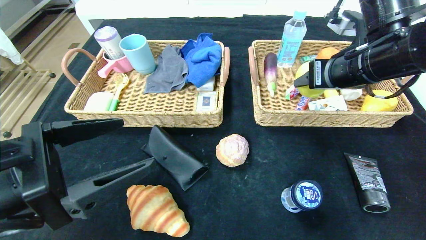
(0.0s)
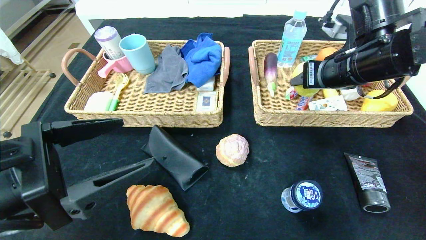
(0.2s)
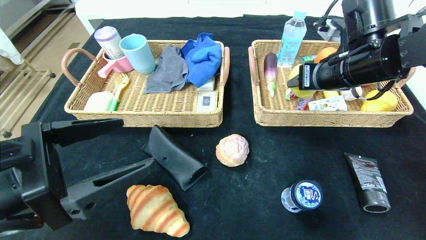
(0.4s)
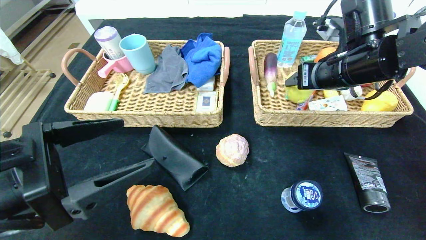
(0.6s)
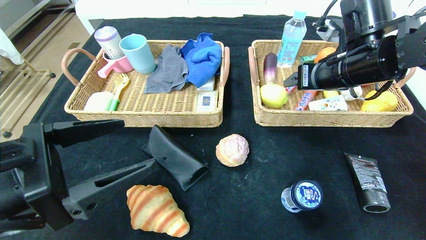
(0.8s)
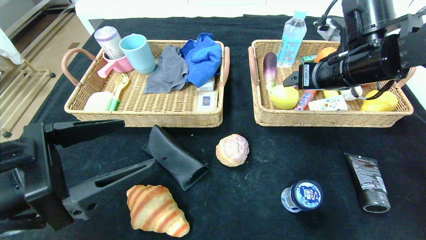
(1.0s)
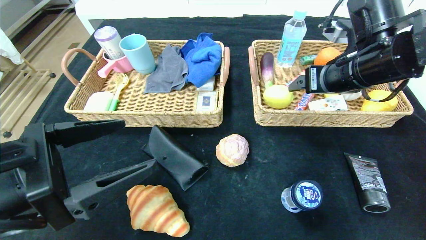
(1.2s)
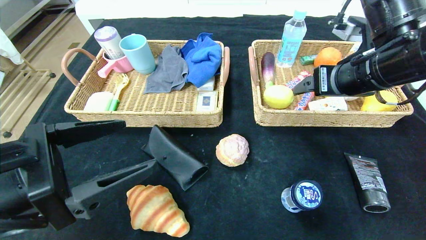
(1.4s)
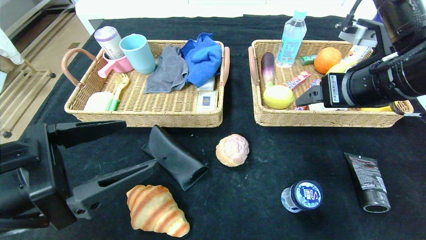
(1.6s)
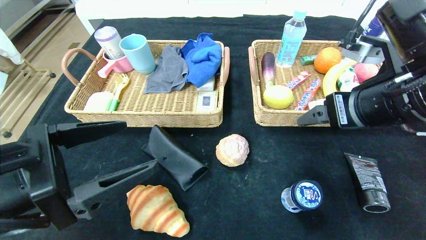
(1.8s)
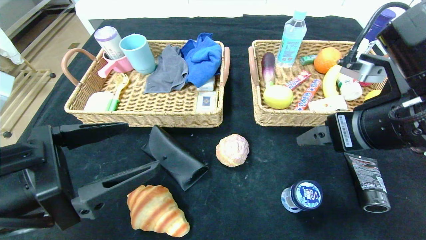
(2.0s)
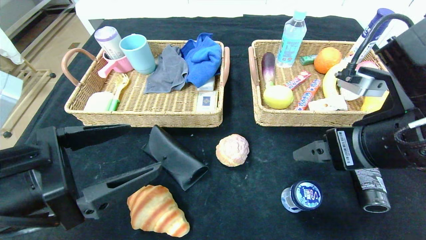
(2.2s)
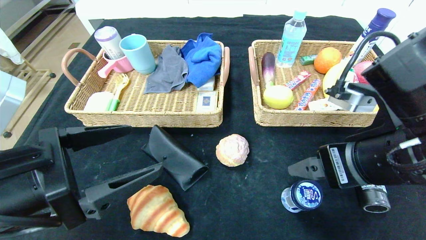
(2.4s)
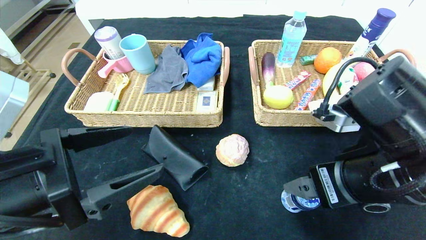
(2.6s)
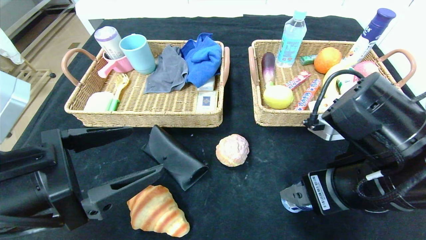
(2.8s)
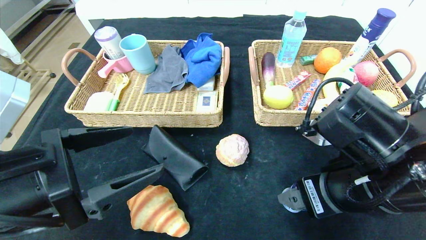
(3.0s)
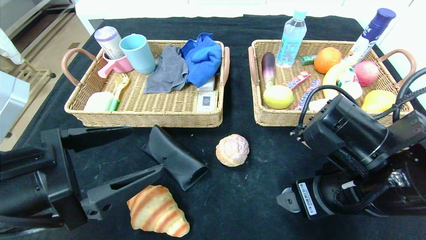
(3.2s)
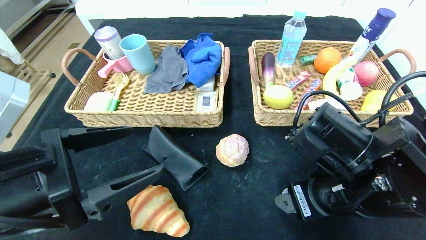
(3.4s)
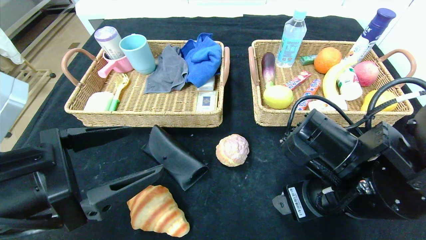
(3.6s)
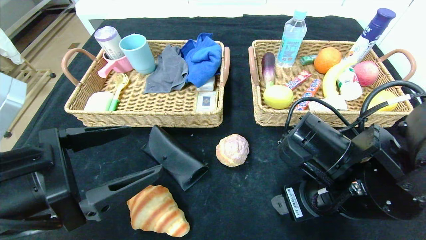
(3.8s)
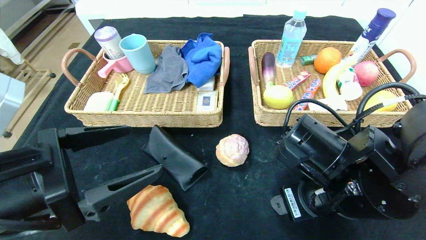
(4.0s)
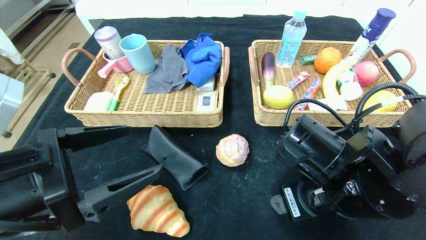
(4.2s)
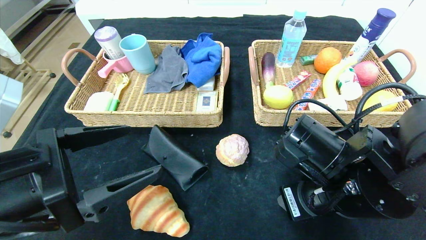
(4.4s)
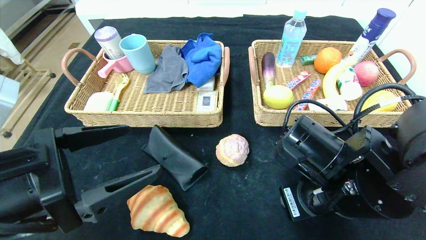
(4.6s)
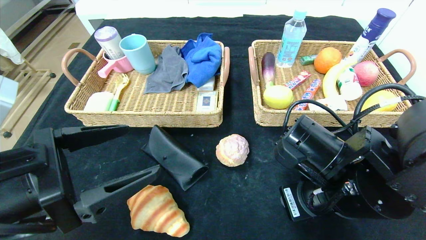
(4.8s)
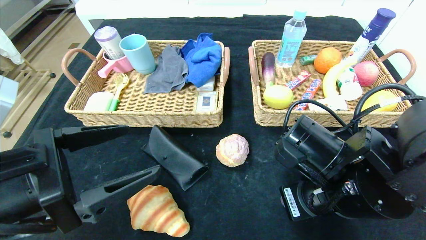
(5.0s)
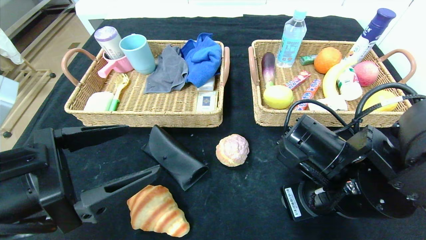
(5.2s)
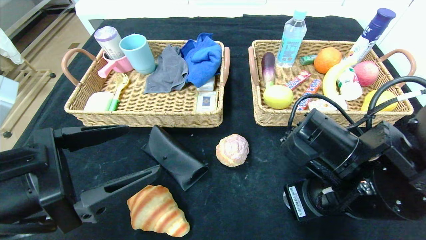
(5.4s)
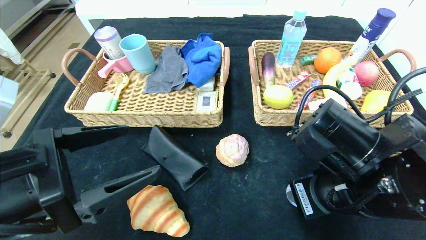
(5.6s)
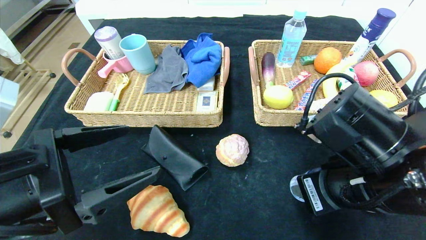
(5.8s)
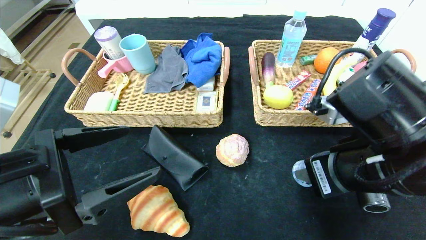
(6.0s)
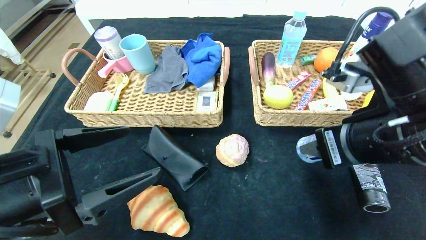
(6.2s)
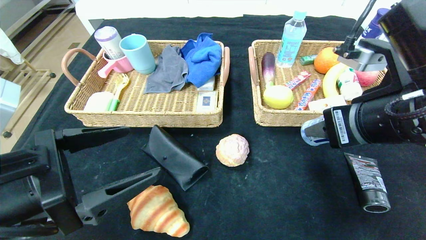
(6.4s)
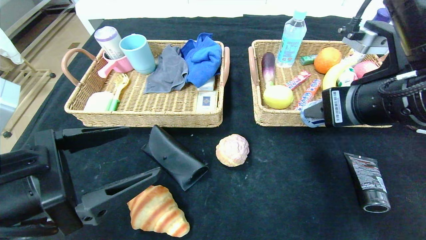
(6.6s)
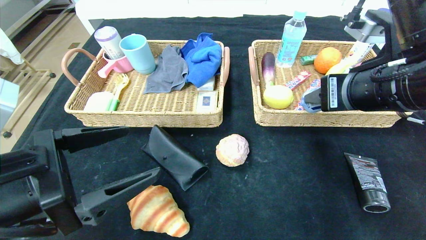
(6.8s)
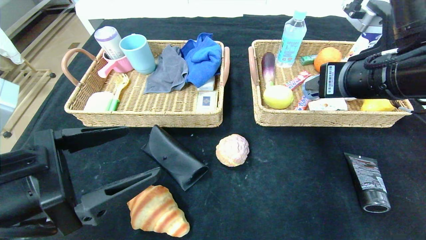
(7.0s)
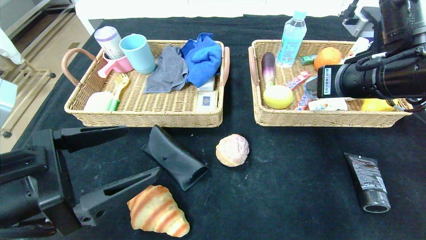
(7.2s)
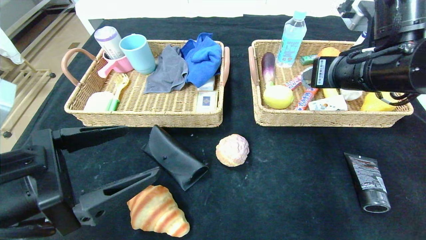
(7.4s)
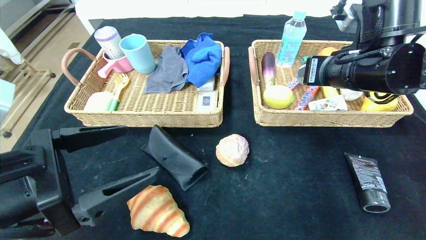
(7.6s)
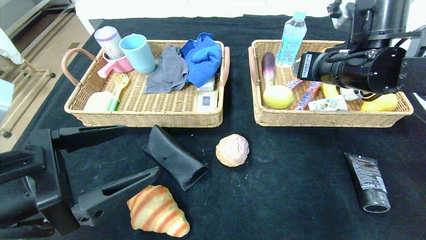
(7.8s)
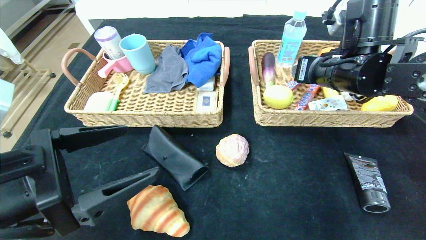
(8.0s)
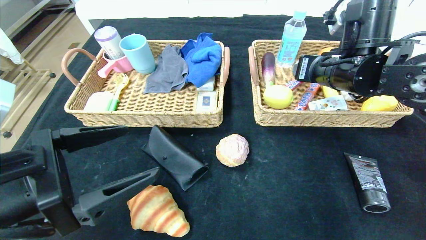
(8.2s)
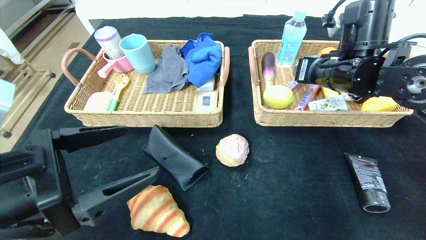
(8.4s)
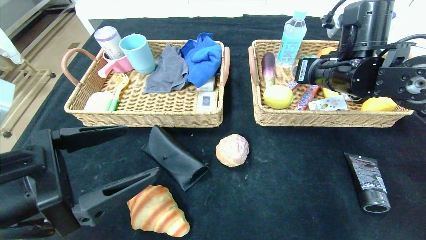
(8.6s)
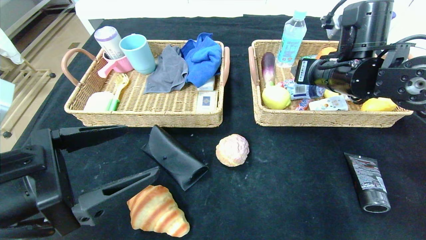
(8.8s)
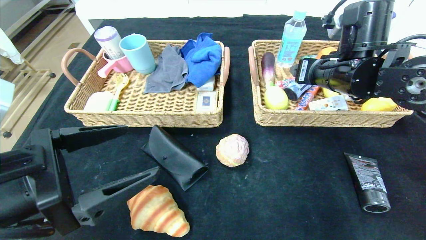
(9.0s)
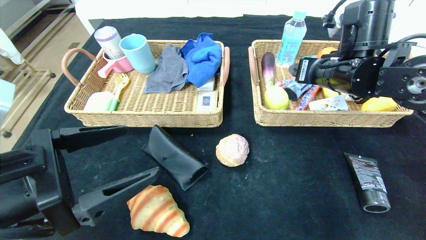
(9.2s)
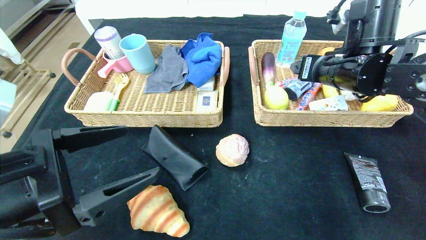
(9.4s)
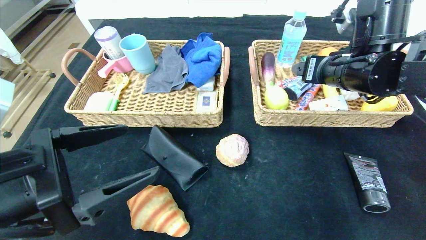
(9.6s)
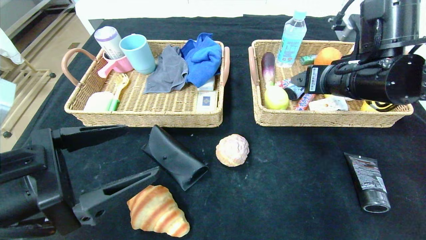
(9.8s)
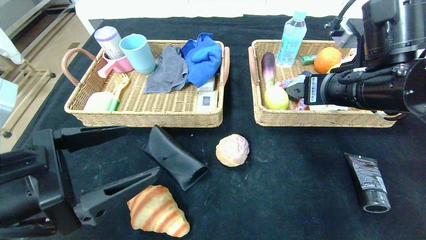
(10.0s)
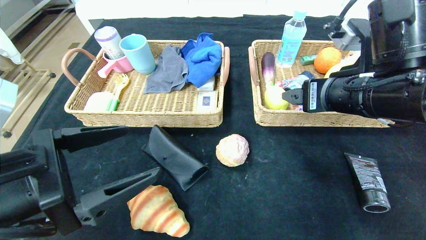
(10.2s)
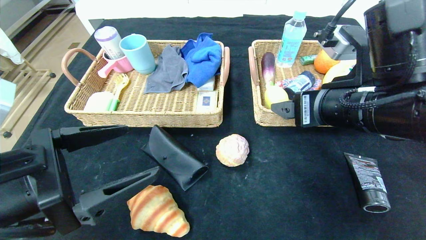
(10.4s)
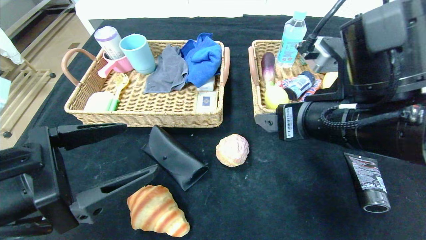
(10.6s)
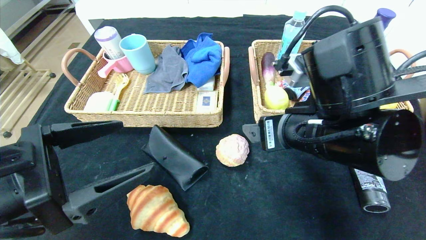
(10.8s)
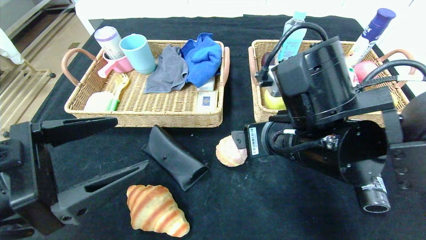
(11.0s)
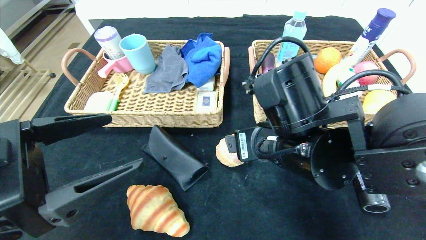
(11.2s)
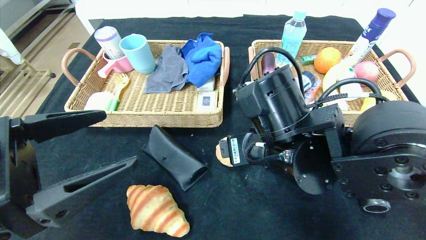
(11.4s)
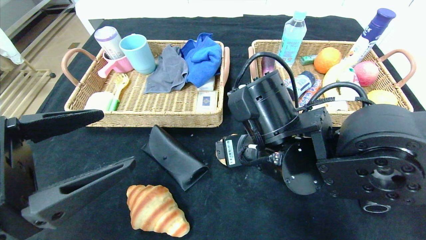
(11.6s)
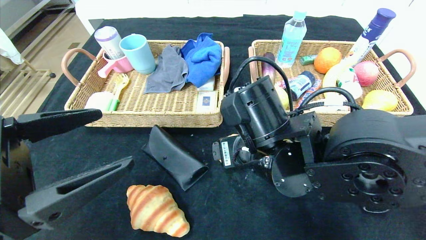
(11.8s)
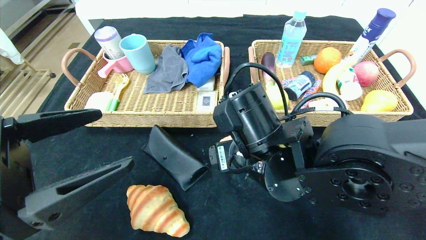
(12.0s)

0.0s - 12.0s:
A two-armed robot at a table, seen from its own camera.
Step, 1.6s - 9.6s: Grasp the round chewing gum and put it in the right basket.
0.0s - 1.6s: The right gripper shifts approximately 5 cm backward, and opens its fingers.
1.6s - 3.0s: The right gripper travels downward and backward by some 10 cm.
3.0s - 4.4s: The right gripper closes up.
4.4s - 6.0s: The right gripper shifts about 5 cm upward.
6.0s - 7.6s: The right gripper goes about 15 cm forward and upward.
7.6s - 9.0s: The right gripper opens its fingers.
9.0s - 10.4s: The right gripper shifts about 10 cm backward, and opens up.
10.4s - 12.0s: The right gripper heads to the left and downward, covering about 15 cm.

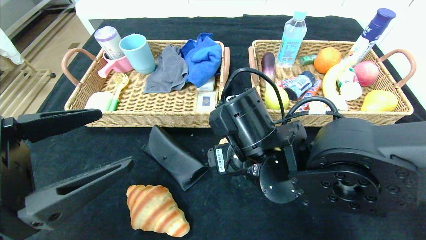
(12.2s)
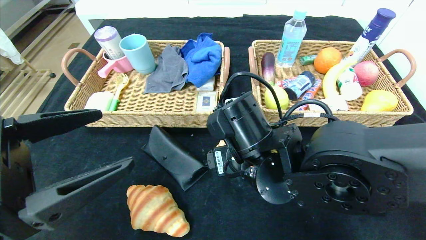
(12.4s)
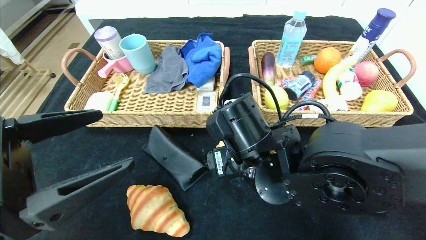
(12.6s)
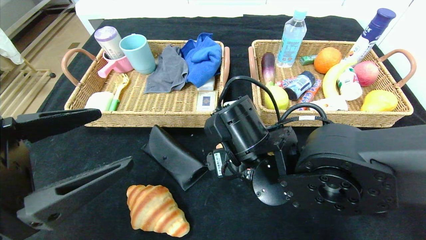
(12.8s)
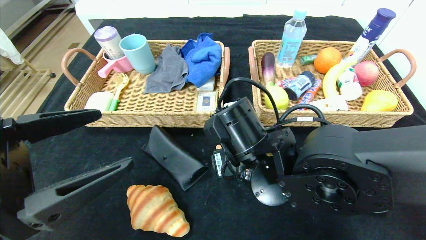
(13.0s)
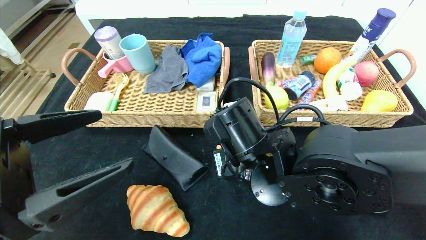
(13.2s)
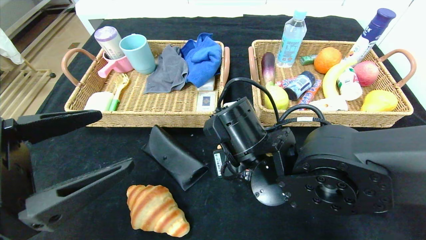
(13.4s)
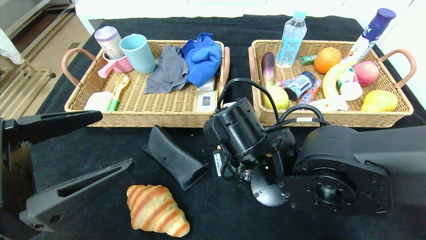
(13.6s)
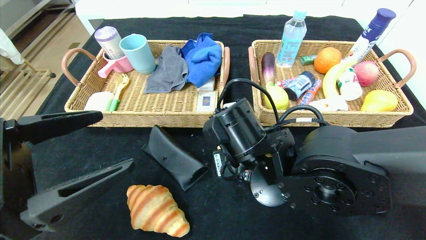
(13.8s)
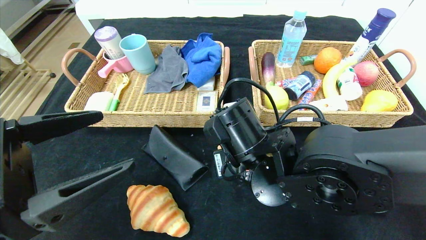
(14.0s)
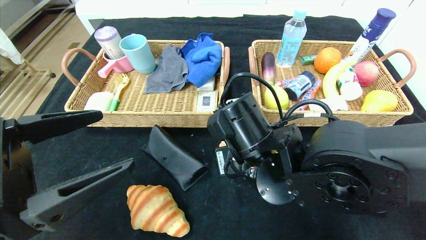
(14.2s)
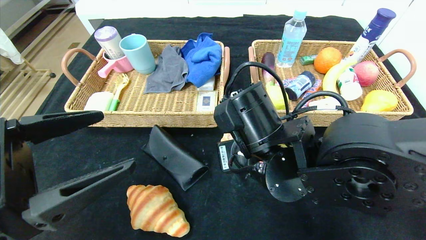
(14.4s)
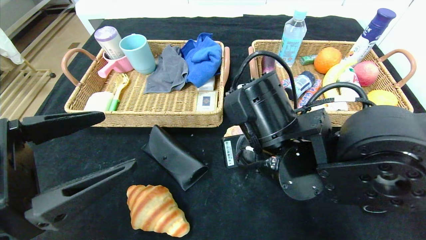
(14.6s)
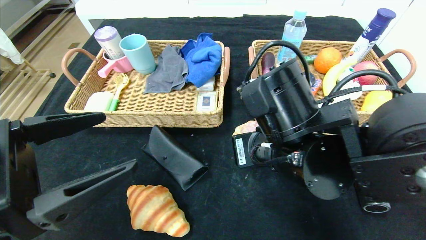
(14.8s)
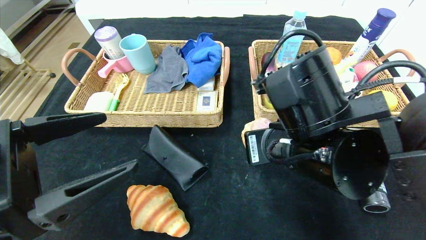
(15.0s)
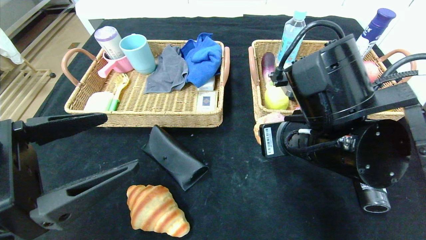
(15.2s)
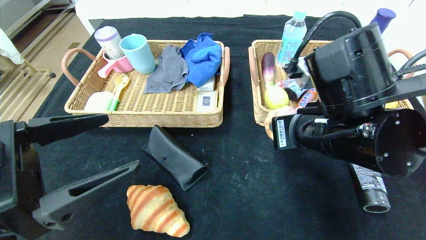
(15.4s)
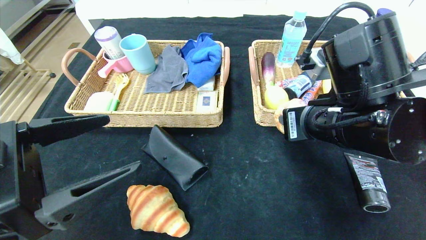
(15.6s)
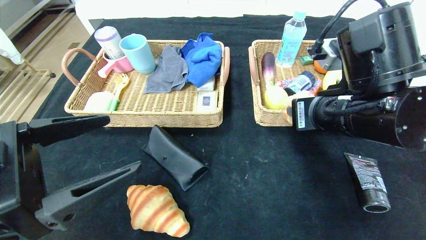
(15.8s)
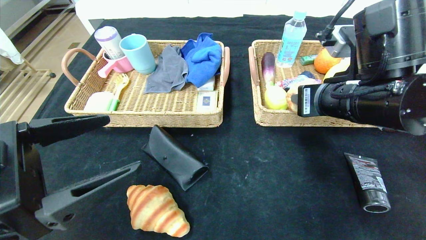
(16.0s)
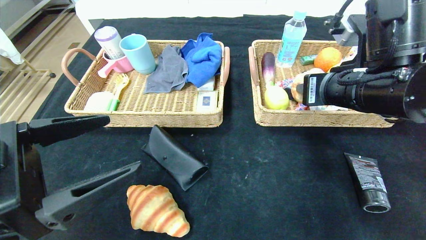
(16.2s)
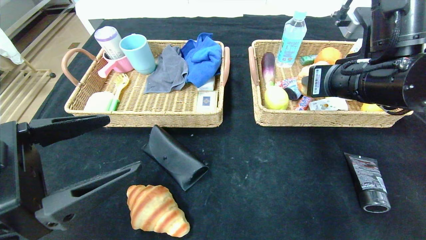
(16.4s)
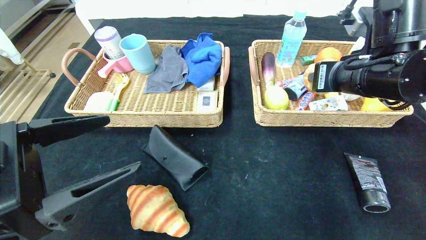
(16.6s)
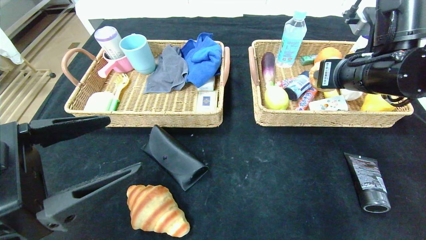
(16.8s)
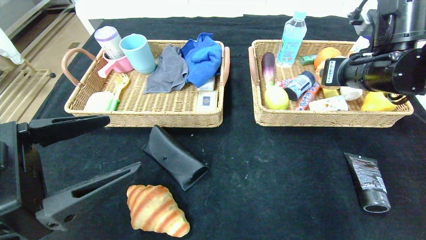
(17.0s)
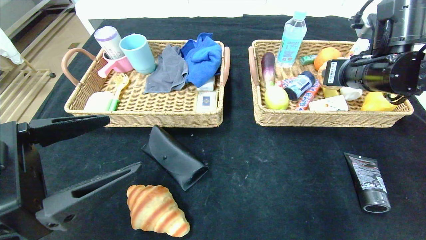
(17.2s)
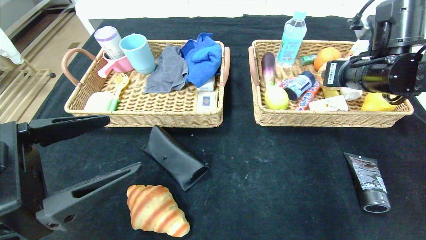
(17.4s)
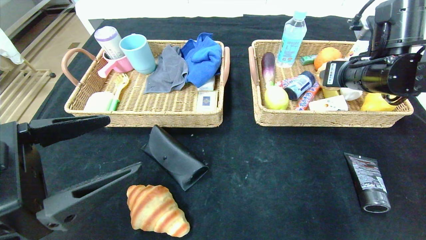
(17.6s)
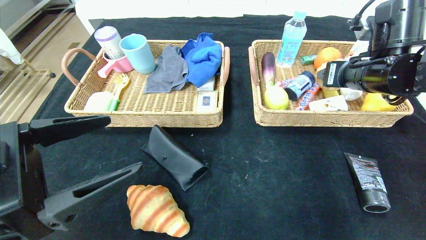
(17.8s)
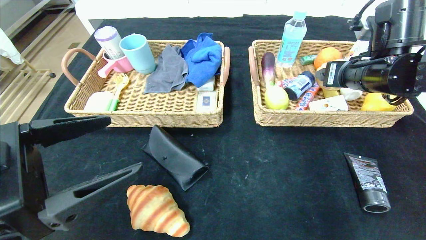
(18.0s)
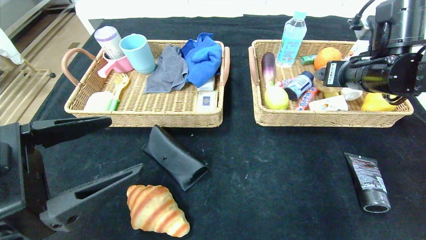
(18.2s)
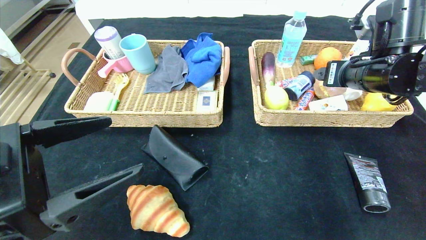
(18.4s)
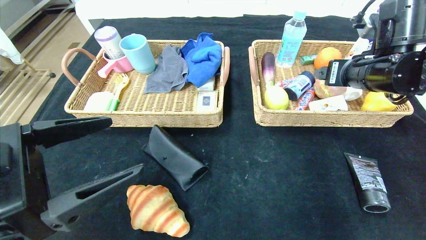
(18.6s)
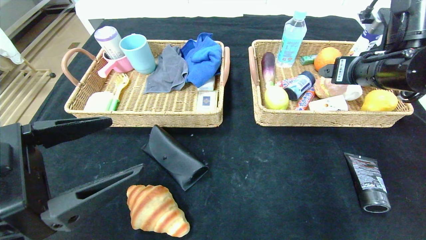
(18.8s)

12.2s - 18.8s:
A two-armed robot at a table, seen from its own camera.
Step, 12.2s - 18.6s: Grasp the round bread and put it in the right basket.
12.2s - 13.8s: The right gripper closes.
13.8s - 15.4s: The right gripper is displaced to the right and upward by about 10 cm.
15.4s - 17.2s: The right gripper shifts some 15 cm to the right and forward.
17.2s - 18.8s: The right gripper opens up.
